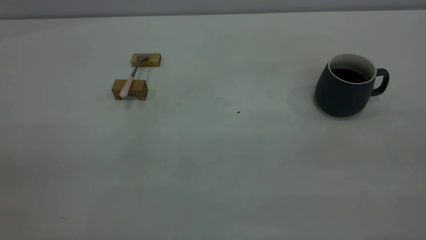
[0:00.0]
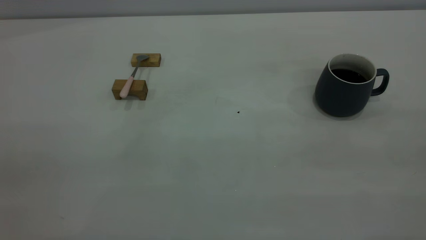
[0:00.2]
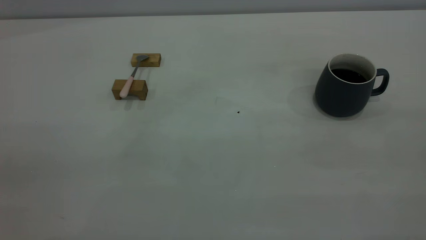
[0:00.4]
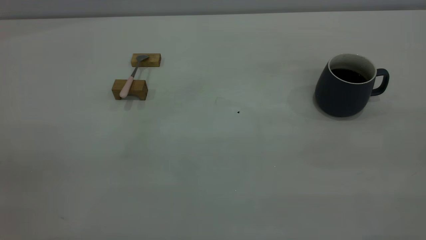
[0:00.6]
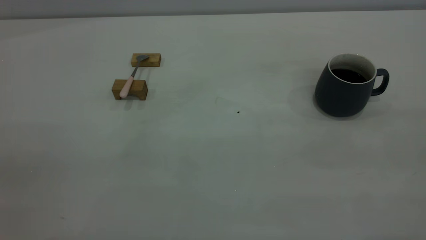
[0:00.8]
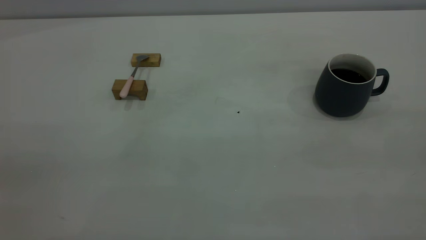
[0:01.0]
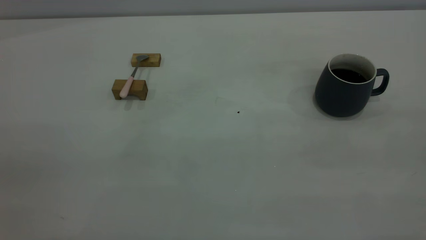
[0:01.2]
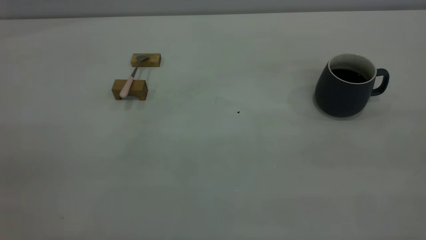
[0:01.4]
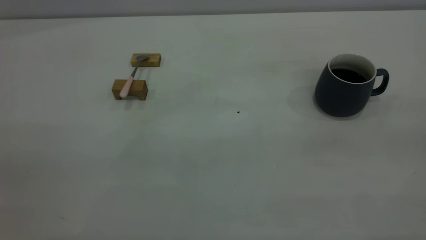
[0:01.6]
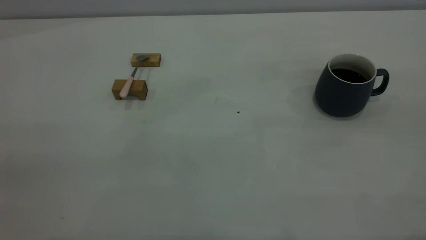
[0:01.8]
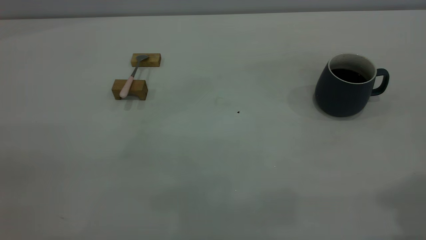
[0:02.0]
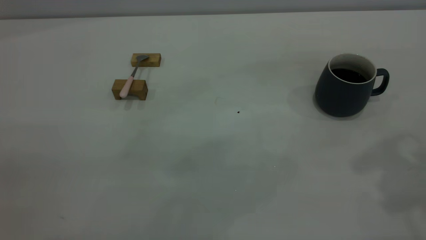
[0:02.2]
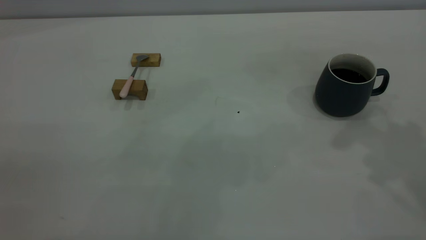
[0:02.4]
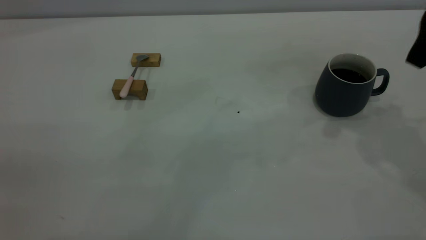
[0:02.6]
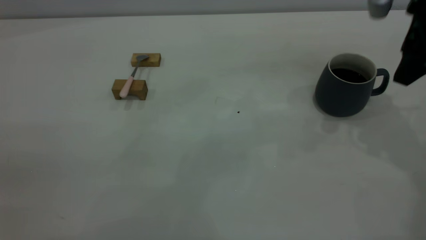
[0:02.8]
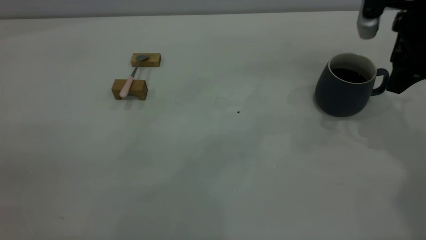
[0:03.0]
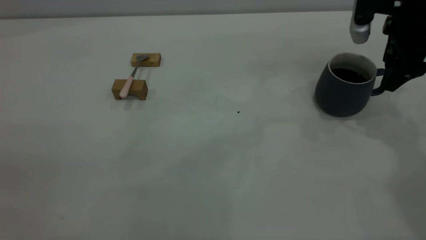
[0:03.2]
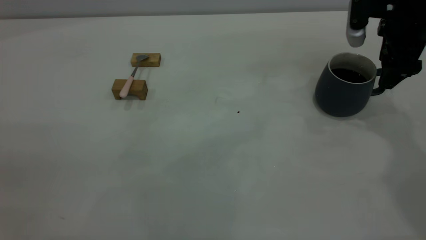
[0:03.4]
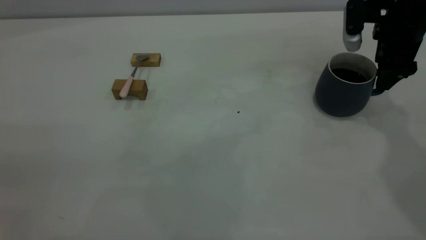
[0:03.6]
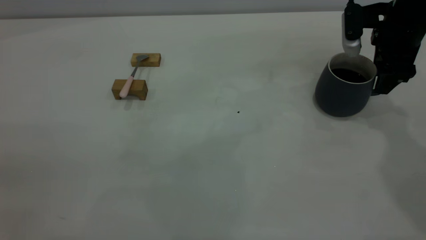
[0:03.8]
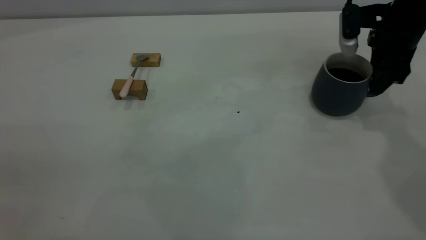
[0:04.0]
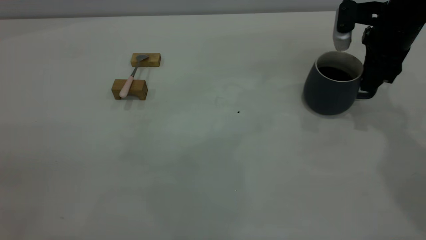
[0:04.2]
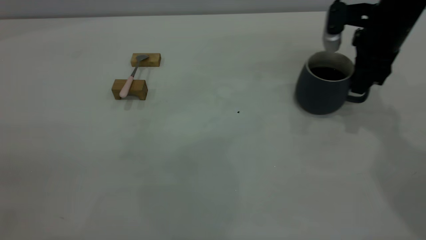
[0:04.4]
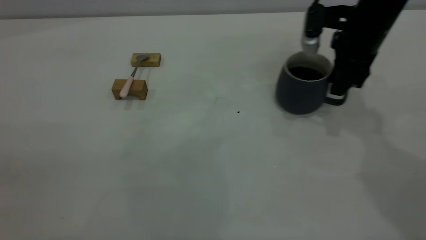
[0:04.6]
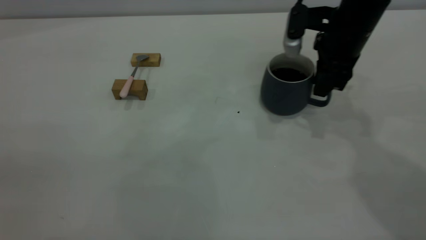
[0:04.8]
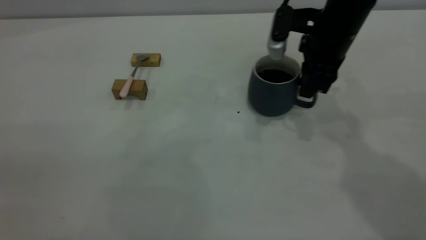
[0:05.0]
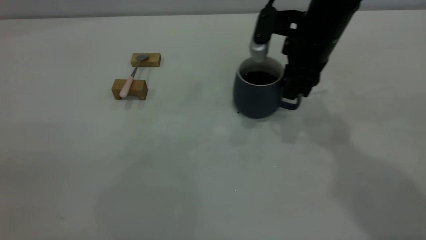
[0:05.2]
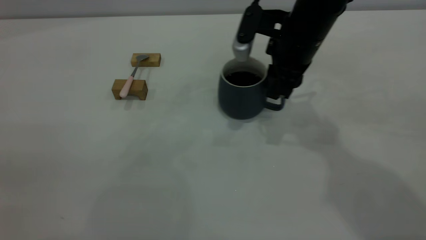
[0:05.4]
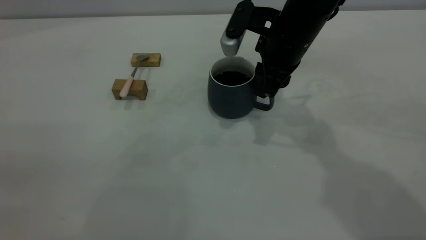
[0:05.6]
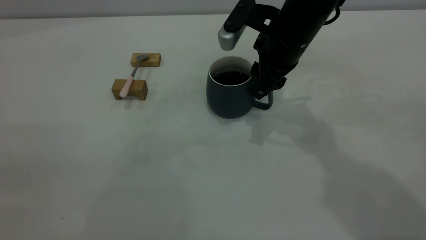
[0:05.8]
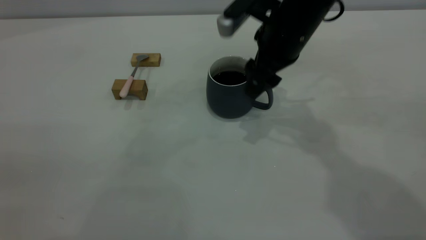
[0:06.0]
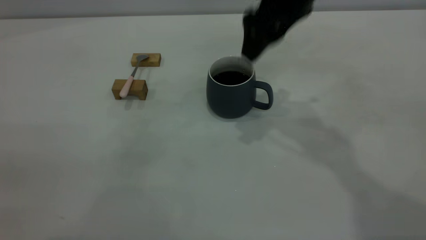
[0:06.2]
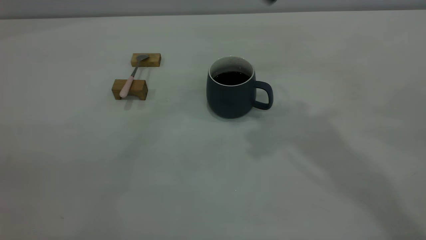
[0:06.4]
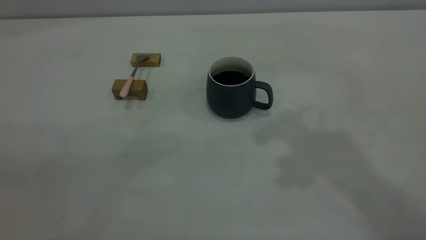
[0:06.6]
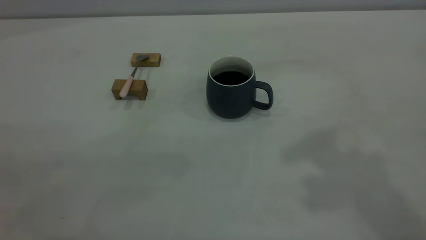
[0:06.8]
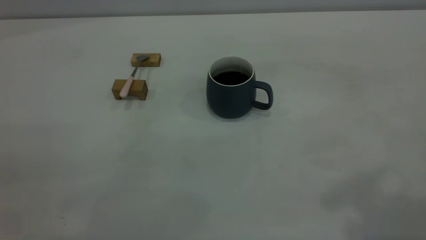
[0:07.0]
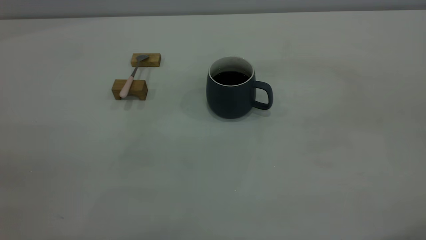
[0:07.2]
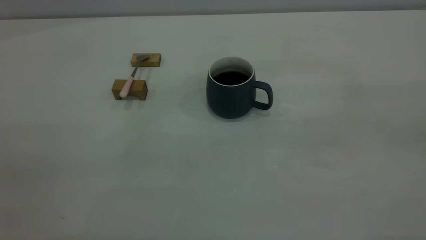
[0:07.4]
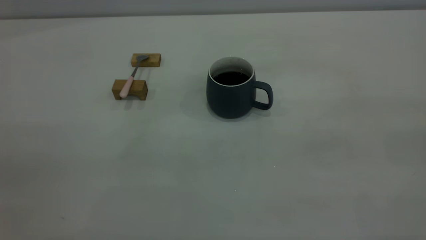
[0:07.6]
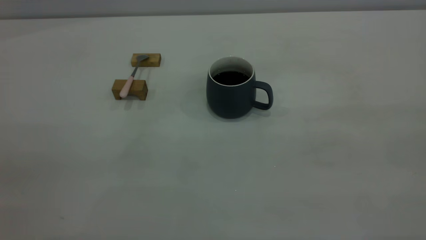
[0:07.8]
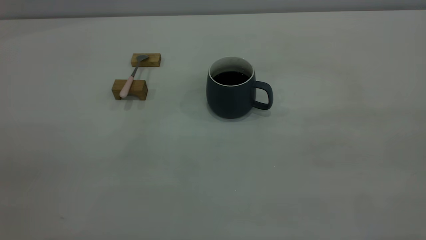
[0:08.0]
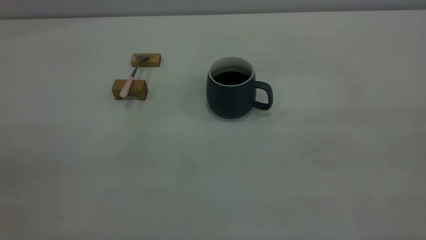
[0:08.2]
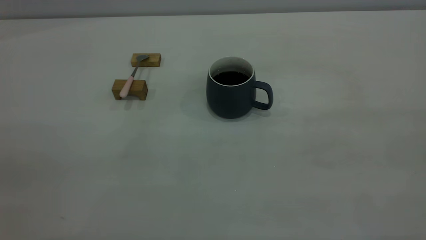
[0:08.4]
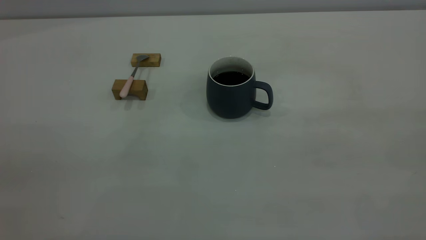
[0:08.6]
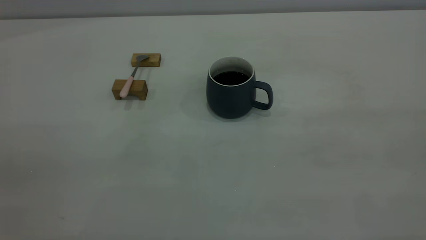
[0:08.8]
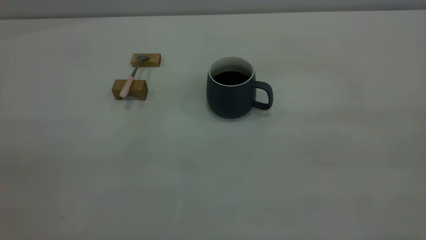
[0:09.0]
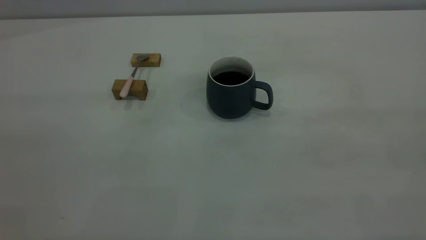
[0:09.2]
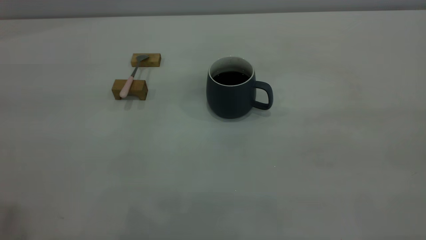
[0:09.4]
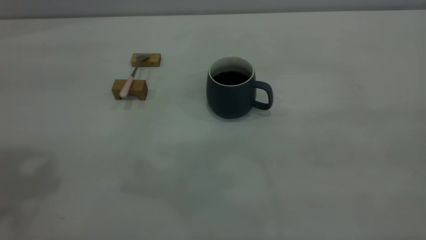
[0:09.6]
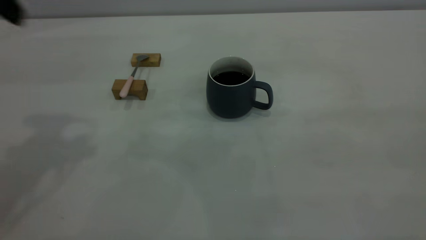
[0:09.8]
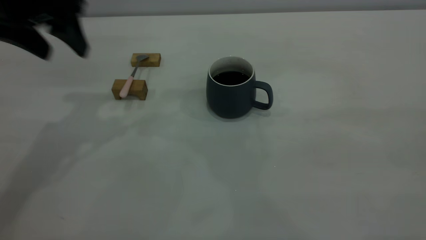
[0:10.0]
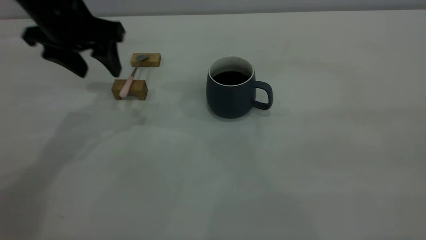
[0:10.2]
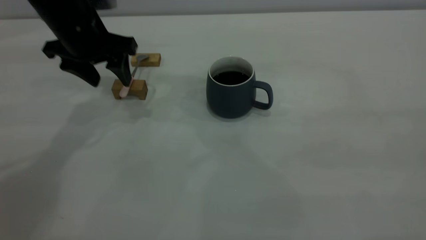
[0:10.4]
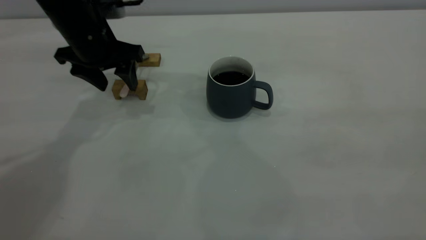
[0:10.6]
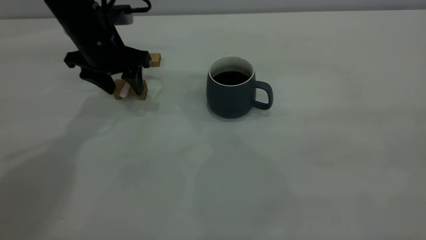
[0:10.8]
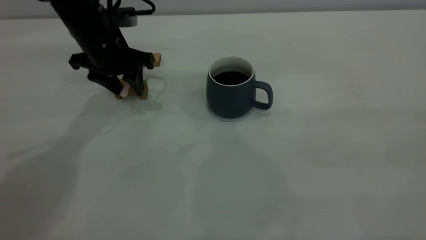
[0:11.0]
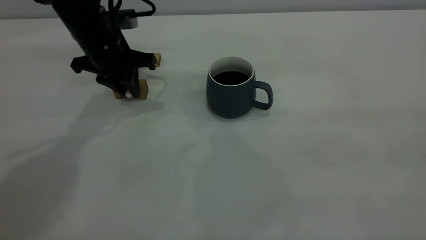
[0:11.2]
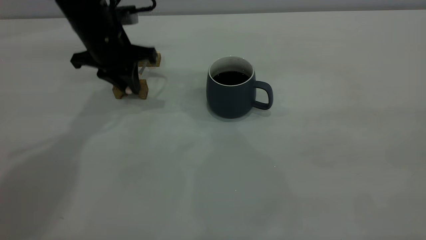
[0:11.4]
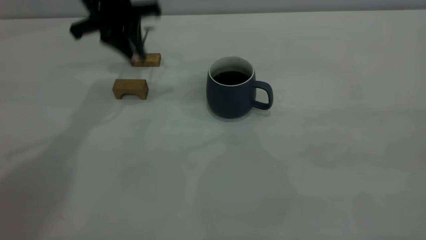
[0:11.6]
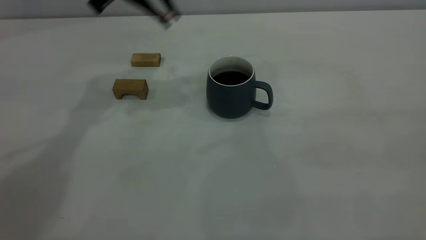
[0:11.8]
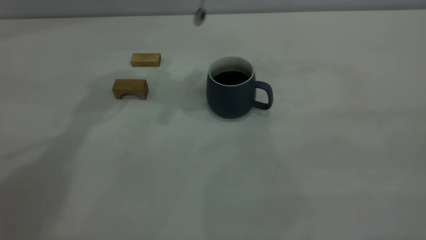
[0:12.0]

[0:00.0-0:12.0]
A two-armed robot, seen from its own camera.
Step, 0:00.0 to 0:06.0: Move the cup with coffee to the center of view.
Step, 0:06.4 to 0:11.4: Pick up the spoon.
0:01.6 to 0:03.0: The right gripper is displaced forward and downward by about 40 cm, and opens its fingers.
0:03.0 to 0:04.4: The right gripper ends up approximately 5 cm from where it was, and closes up.
0:04.4 to 0:06.0: The right gripper moves to the left, approximately 15 cm, and opens up.
0:06.0 to 0:07.6: The right gripper heads backward, upward and to the right, covering some 50 cm.
0:09.0 to 0:10.4: The left gripper moves forward and downward, about 50 cm.
0:10.4 to 0:12.0: The left gripper shifts some 15 cm upward and to the right, and closes up.

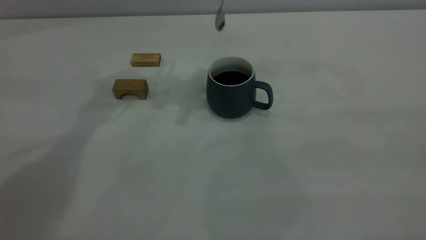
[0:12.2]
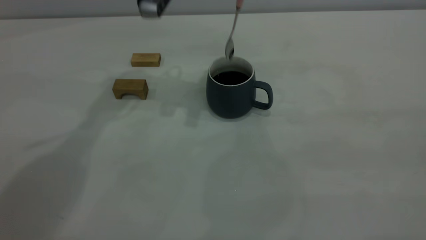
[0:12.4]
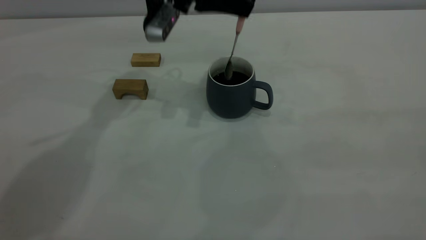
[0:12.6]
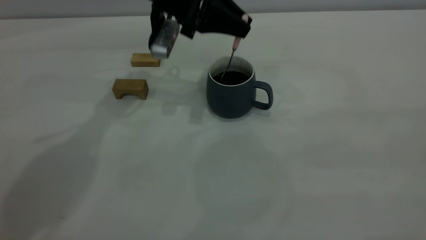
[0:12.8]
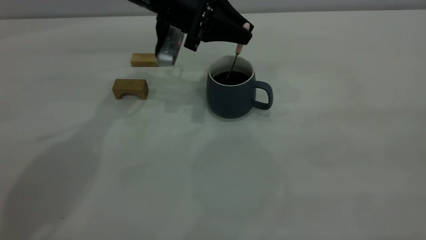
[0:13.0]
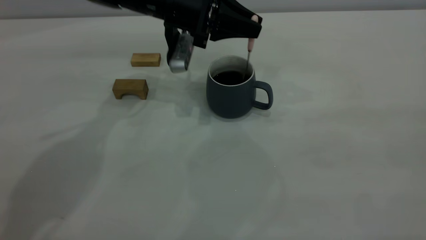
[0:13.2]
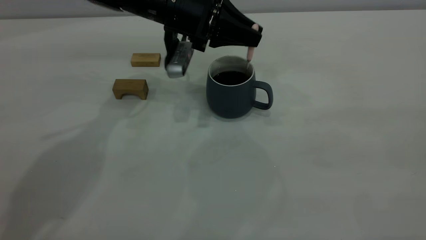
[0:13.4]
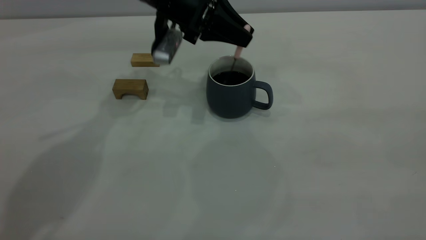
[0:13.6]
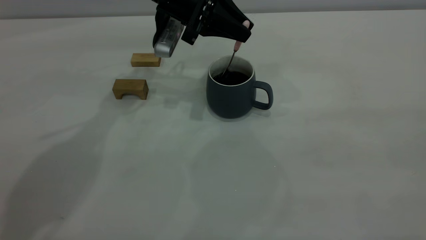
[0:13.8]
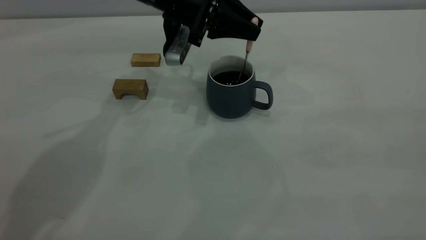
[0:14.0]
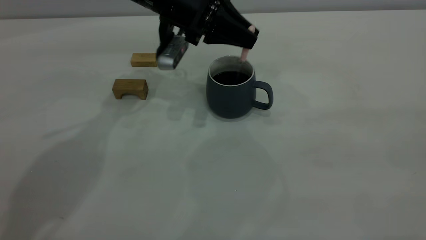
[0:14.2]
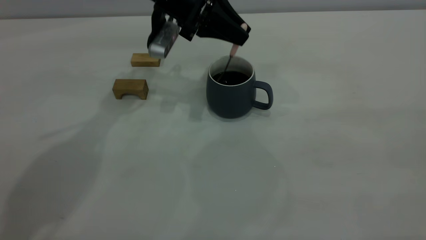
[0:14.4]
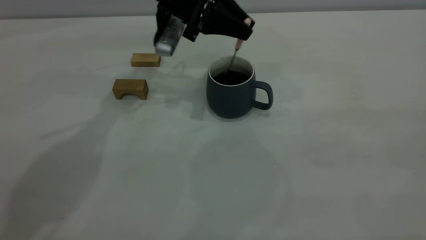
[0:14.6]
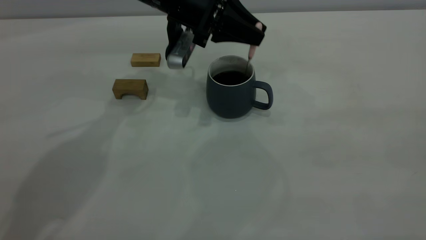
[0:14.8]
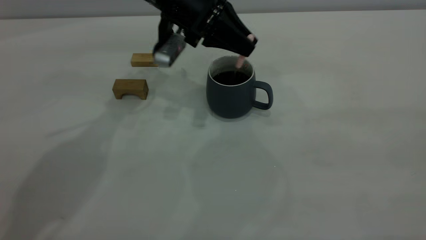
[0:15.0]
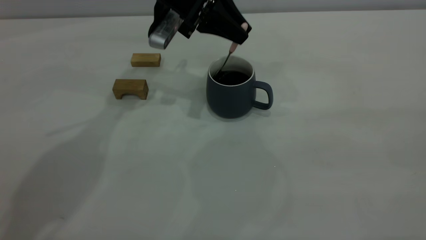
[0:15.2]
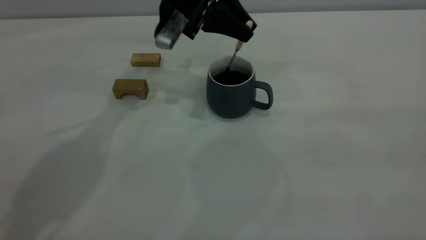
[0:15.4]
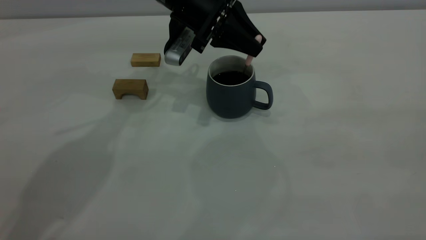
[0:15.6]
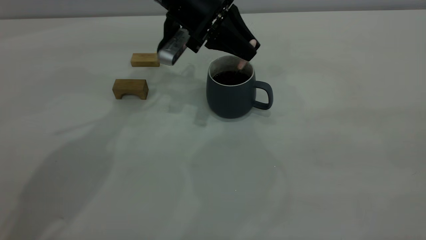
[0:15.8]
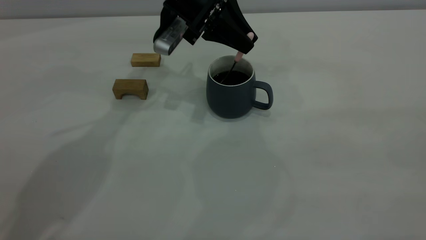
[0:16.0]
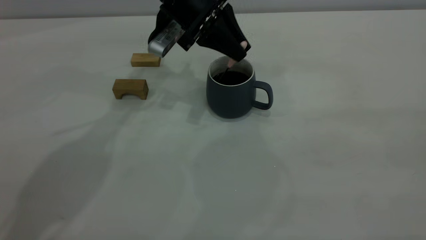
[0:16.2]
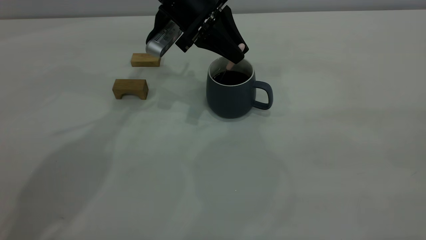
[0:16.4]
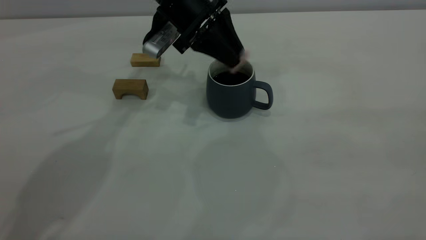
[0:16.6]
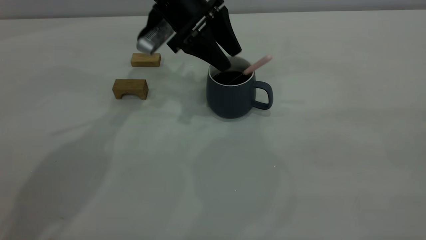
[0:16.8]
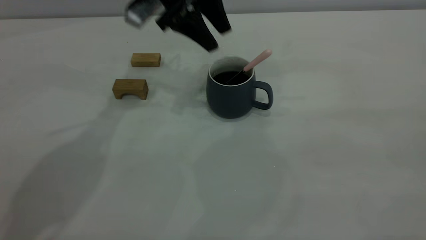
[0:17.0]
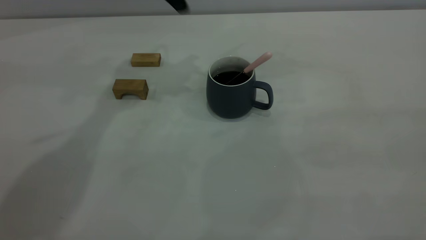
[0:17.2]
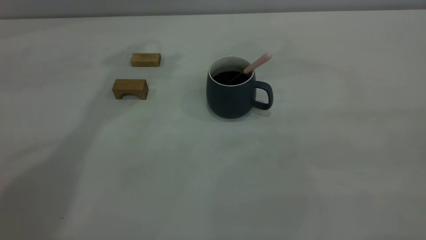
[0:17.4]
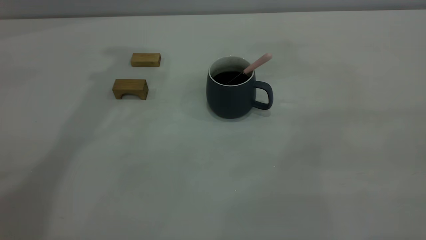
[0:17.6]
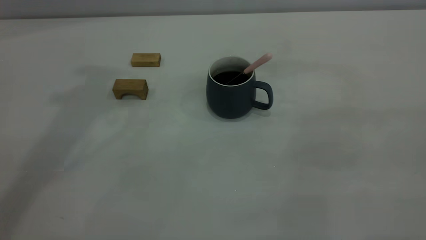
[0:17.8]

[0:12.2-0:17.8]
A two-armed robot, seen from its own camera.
Step, 0:12.2 to 0:17.0: Stir the coffee in the cup.
0:12.2 to 0:13.6: The left gripper moves downward, about 10 cm.
0:13.6 to 0:16.4: The grippers stay close to where they were, moving slightly.
0:16.4 to 0:17.8: The left gripper travels upward and to the left by about 30 cm, and opens.
